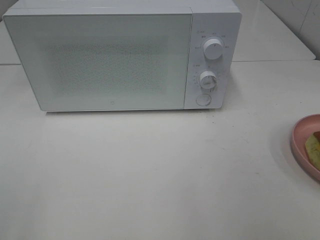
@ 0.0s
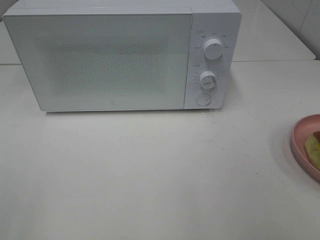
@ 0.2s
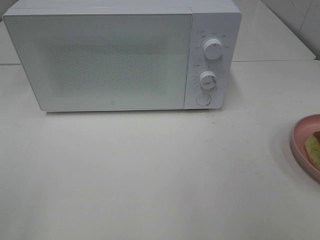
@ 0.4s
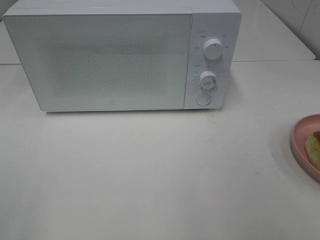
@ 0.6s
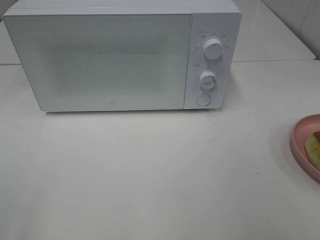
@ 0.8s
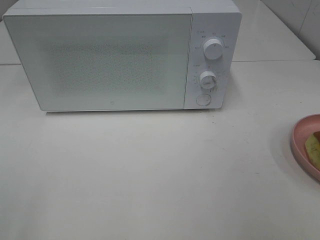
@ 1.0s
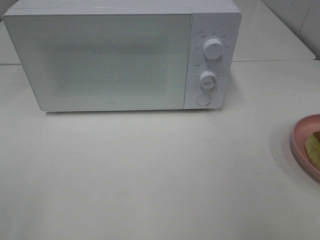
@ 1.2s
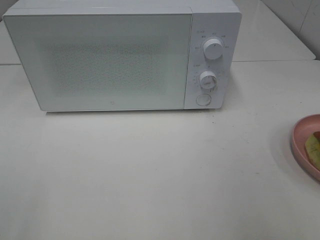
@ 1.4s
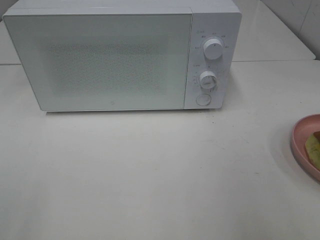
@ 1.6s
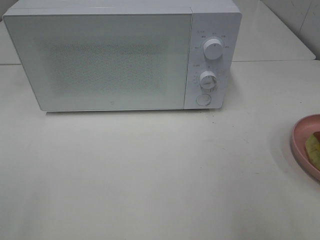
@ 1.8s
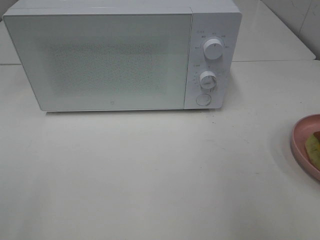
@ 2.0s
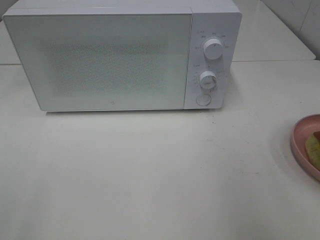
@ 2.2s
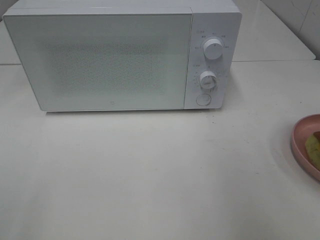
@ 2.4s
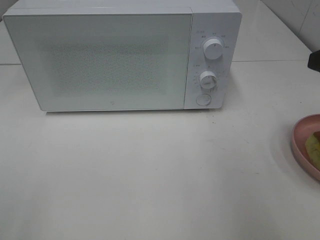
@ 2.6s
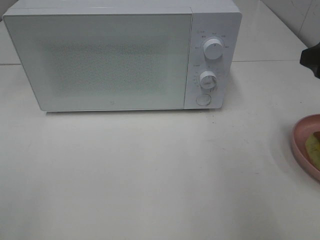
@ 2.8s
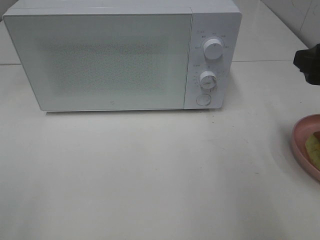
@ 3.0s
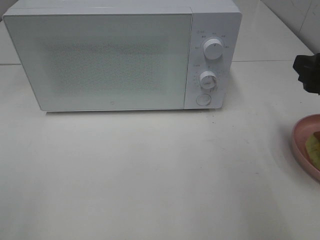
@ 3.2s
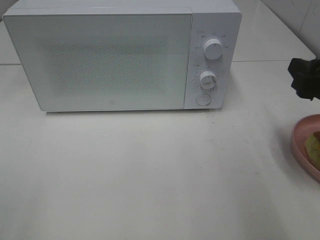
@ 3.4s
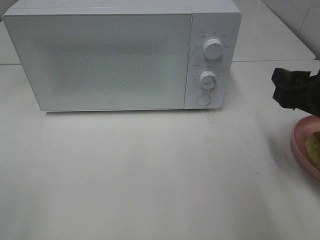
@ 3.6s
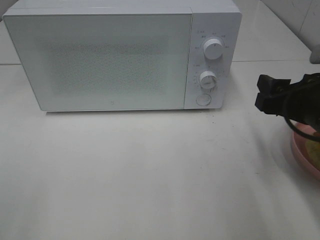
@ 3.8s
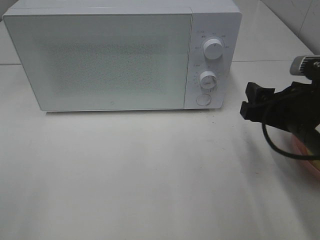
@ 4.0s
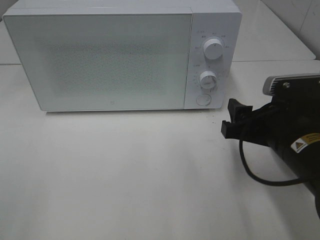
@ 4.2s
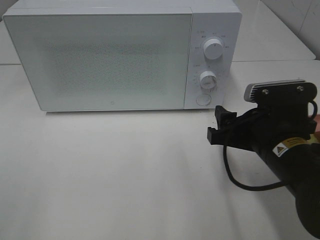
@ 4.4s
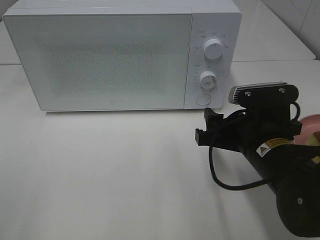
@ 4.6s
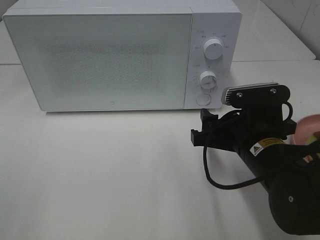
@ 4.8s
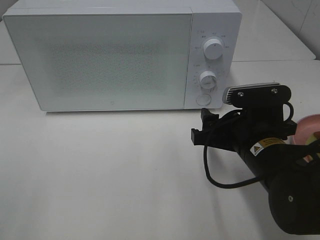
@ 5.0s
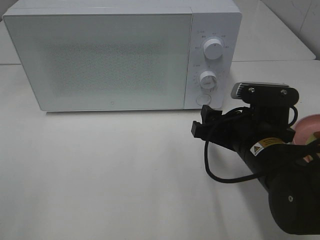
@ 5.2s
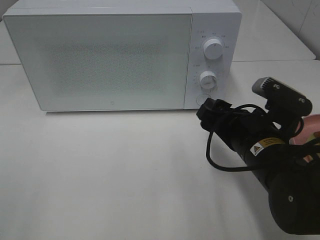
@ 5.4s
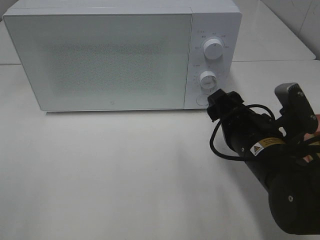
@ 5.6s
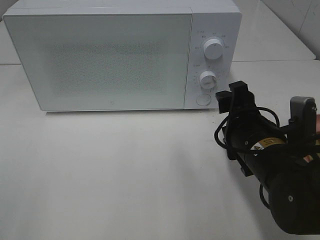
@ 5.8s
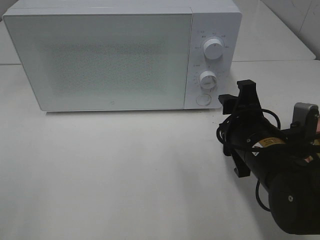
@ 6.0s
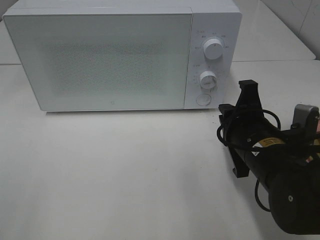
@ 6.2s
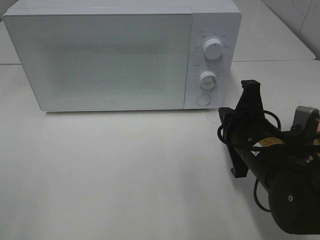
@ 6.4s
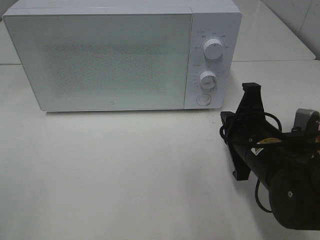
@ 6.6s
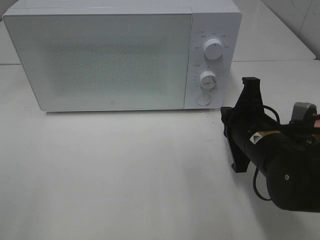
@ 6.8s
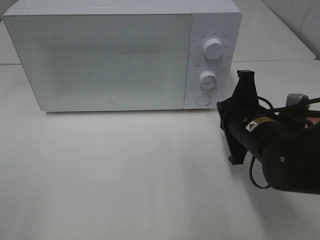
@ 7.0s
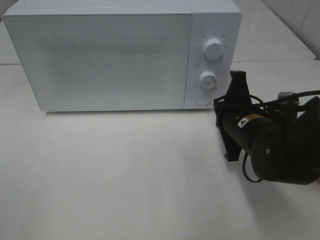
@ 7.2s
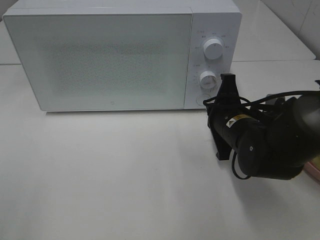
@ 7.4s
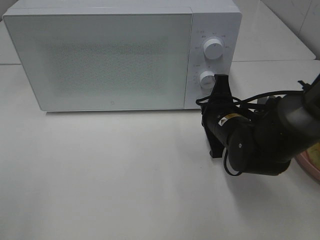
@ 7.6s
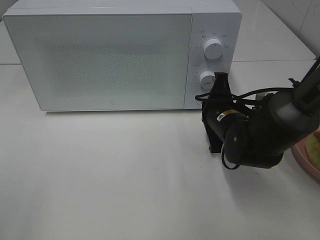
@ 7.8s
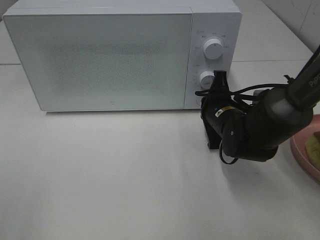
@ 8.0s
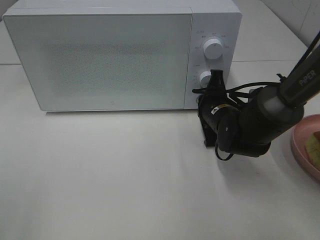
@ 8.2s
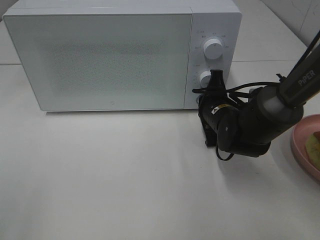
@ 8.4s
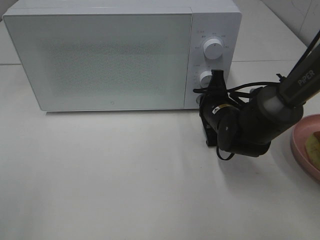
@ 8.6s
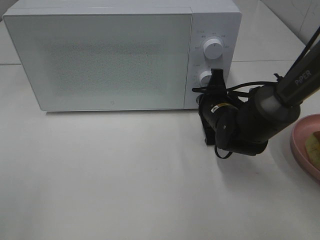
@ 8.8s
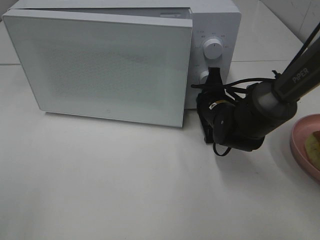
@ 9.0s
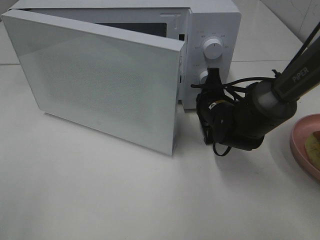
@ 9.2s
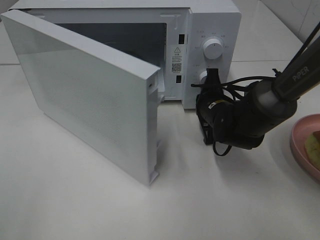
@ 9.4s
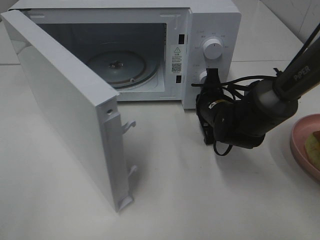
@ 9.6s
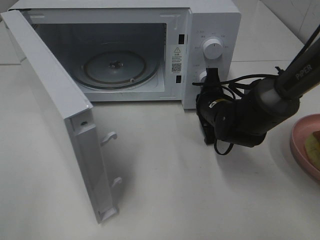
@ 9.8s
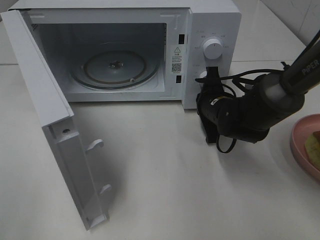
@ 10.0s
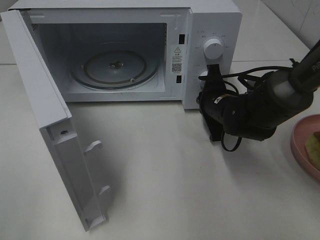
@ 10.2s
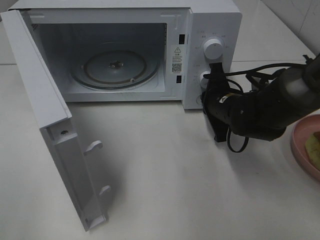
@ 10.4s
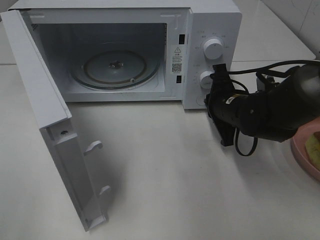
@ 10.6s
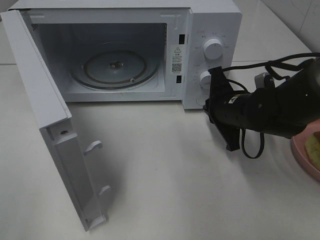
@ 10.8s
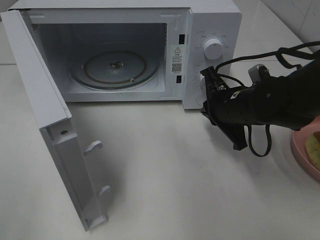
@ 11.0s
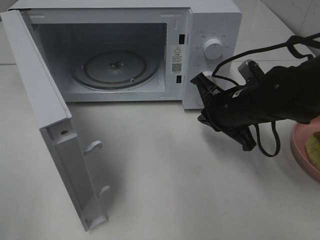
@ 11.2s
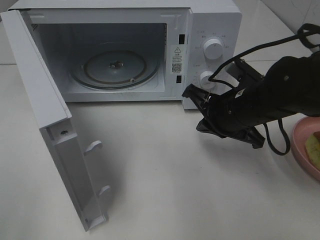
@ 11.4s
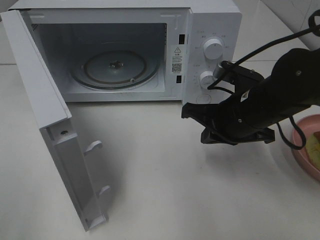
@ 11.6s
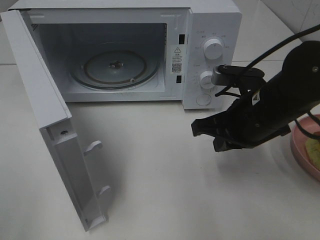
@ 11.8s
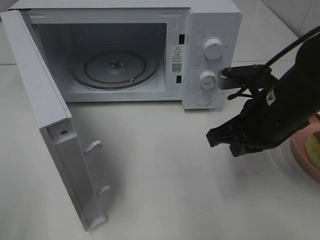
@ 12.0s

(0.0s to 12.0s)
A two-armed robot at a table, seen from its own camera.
Task of the whole recording: Heat Sandwich.
Step, 0.0s - 10.6s: Right hand: press the switch.
1.6s - 3.0s: The right gripper travels forward and downward by approximately 15 cm.
3.0s - 4.4s: The right gripper shifts some 15 cm to the left and downward.
6.0s - 7.6s: The right gripper moves forward, approximately 10 cm, and closes.
7.6s - 9.0s: The right gripper is displaced forward by some 5 cm.
10.4s - 12.0s: The right gripper shifts about 15 cm backward and upward.

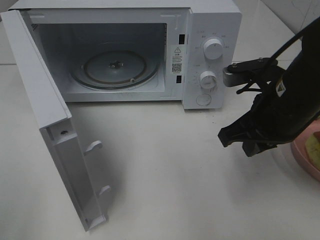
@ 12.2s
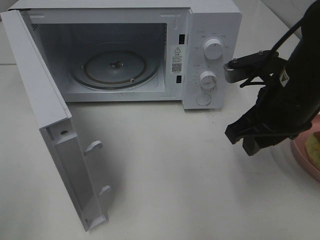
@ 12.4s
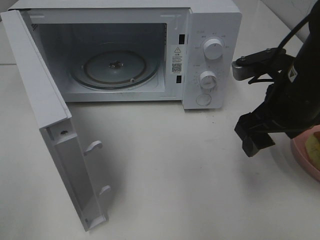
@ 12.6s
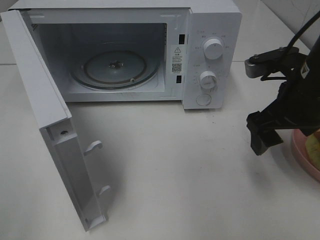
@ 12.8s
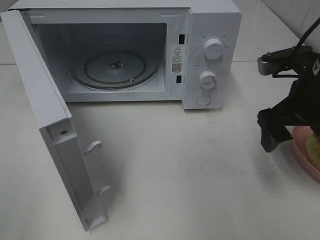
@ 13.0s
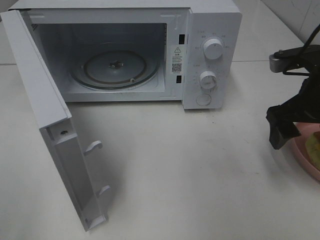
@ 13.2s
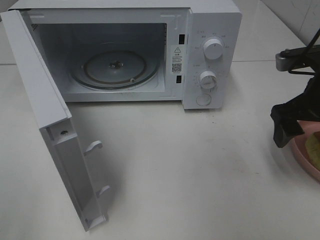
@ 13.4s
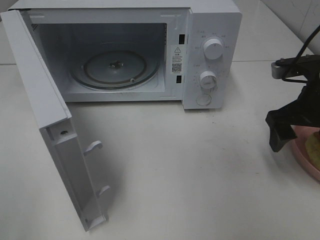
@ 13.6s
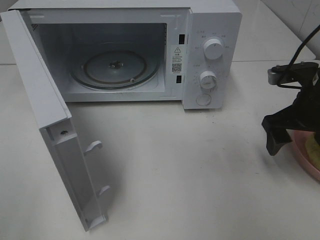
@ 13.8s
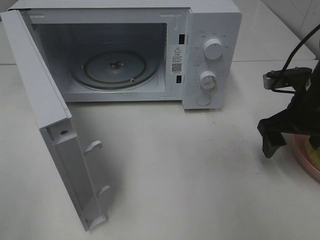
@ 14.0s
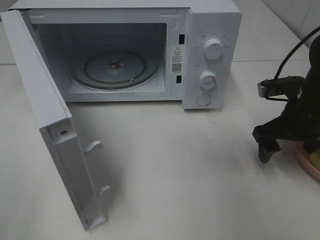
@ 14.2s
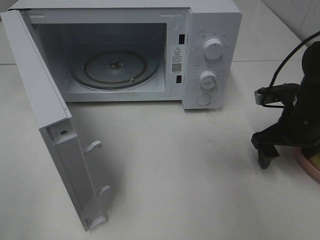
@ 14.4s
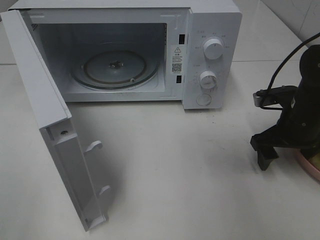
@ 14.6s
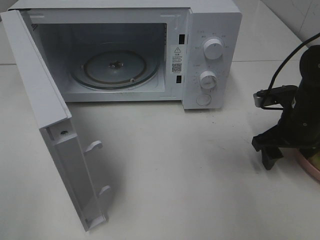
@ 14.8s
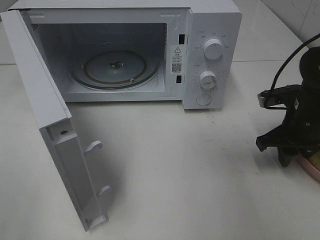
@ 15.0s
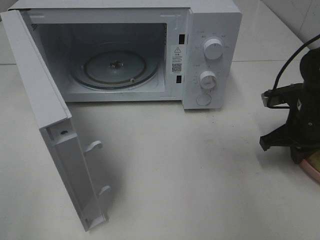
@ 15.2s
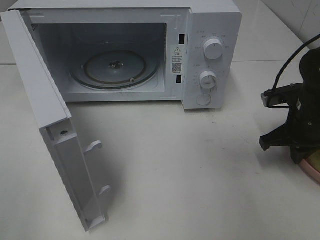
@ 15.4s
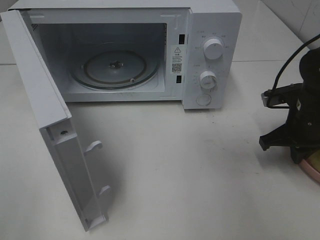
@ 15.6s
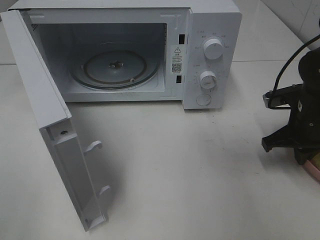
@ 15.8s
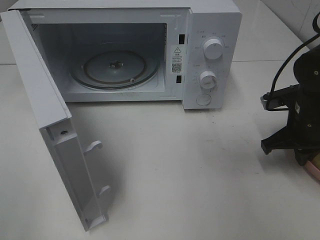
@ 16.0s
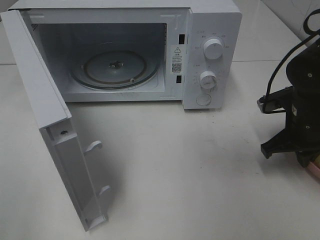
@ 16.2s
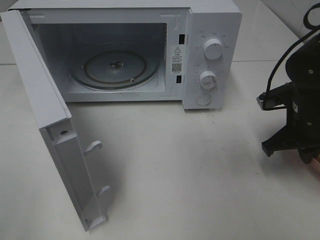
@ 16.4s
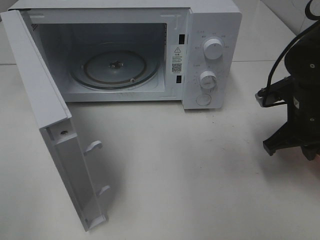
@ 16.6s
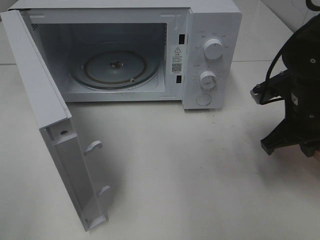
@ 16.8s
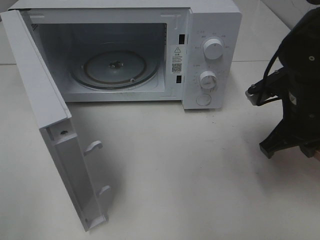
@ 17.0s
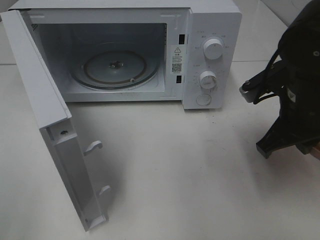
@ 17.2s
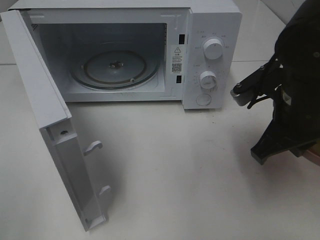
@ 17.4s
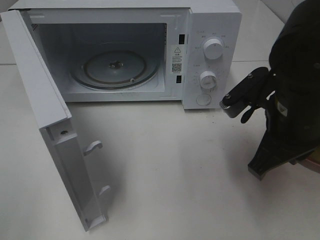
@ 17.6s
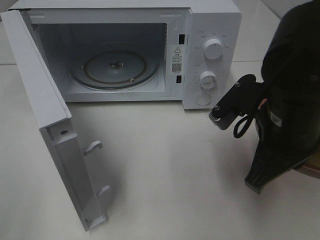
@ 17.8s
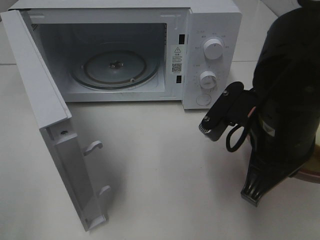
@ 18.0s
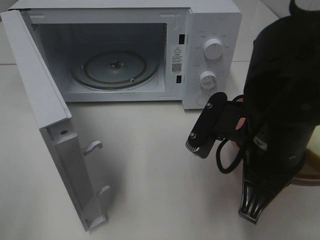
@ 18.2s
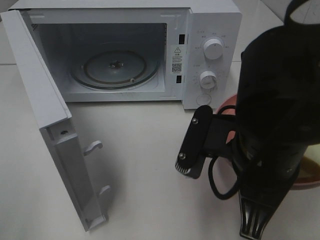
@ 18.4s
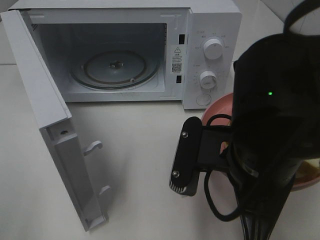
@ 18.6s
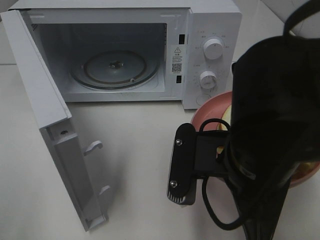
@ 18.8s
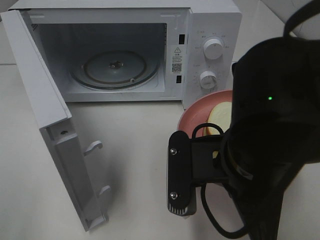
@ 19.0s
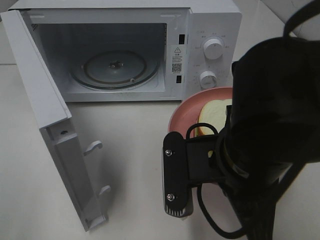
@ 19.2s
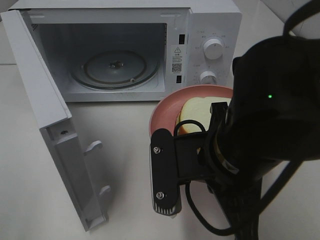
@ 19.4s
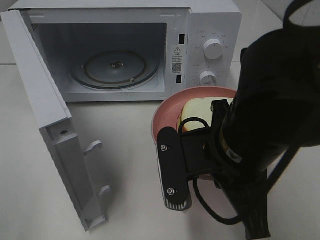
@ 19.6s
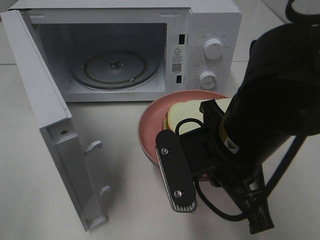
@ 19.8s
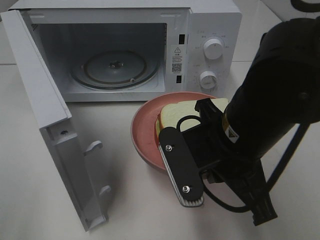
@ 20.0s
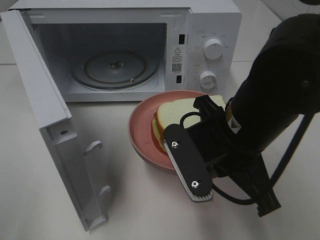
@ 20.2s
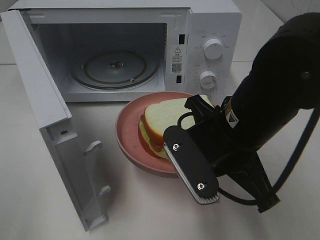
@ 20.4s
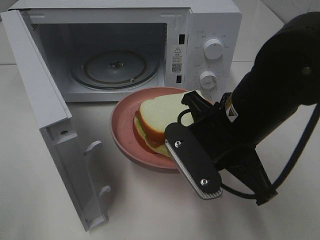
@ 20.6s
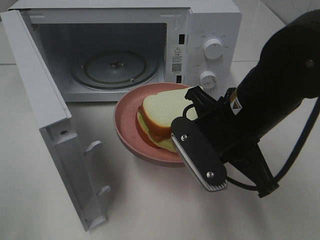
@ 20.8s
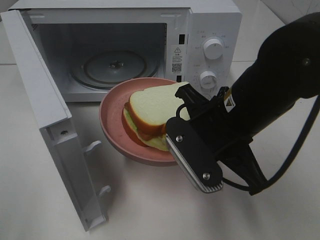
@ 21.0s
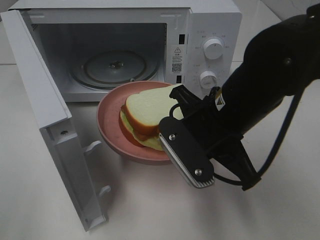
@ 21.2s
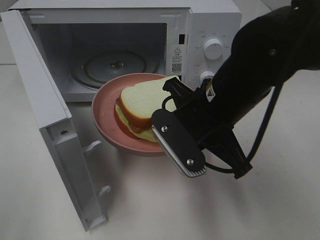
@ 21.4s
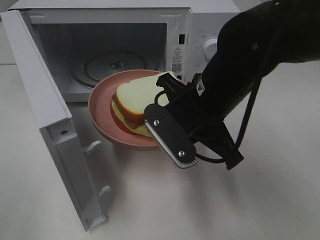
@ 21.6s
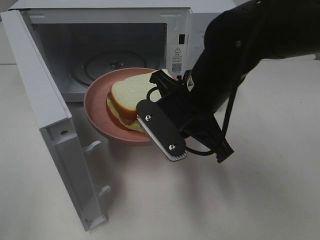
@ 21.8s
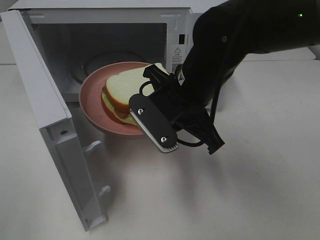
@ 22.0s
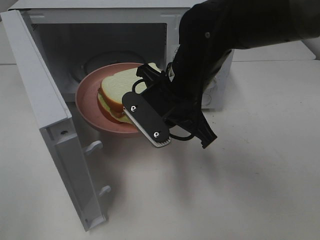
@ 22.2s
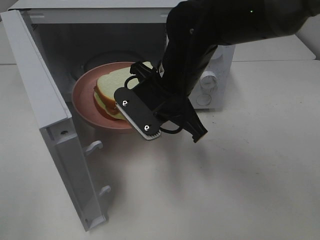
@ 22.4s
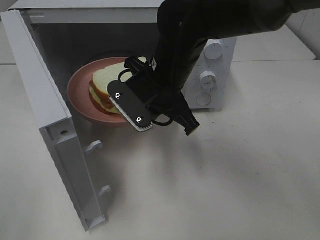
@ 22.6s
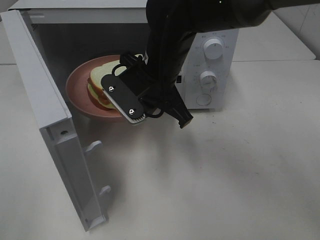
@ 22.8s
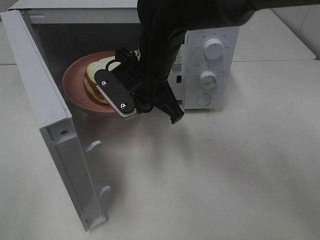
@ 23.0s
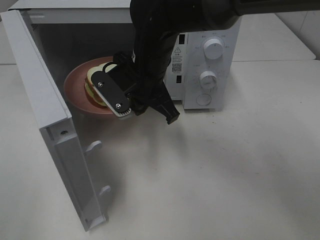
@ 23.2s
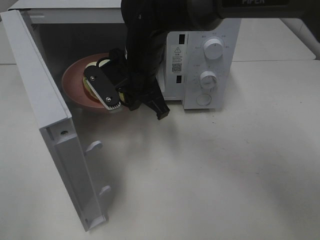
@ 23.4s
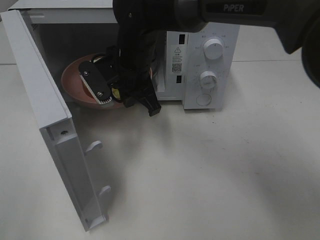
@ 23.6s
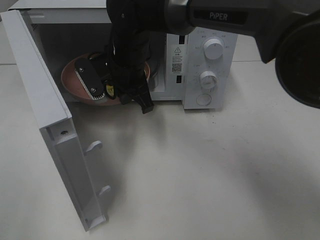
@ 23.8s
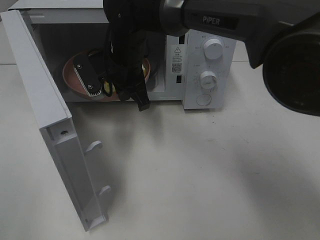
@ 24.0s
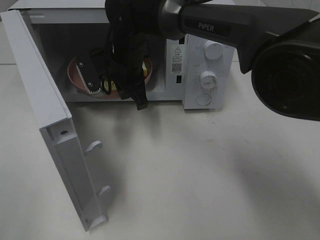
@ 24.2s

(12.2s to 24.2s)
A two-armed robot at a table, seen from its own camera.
Task of the whole recording: Heat Sandwich.
Step, 12.2s - 16.2s: Right hand: grab the plate with the sandwich.
12.2s - 13.8s: The right gripper goes some 10 cm to the right, and opens its fingers.
13.8s - 15.2s: The right gripper is displaced downward by some 5 cm, and closes up.
15.2s - 16.6s: The grippers stay close to where they were, moving slightly.
16.6s - 18.2s: The right gripper shifts approximately 15 cm to the left and backward.
19.8s - 21.2s: The right gripper goes roughly 5 cm forward.
21.2s - 22.6s: The right gripper heads forward and to the left, covering some 10 cm.
22.6s - 24.2s: The right gripper moves forward and to the left, approximately 10 cm.
